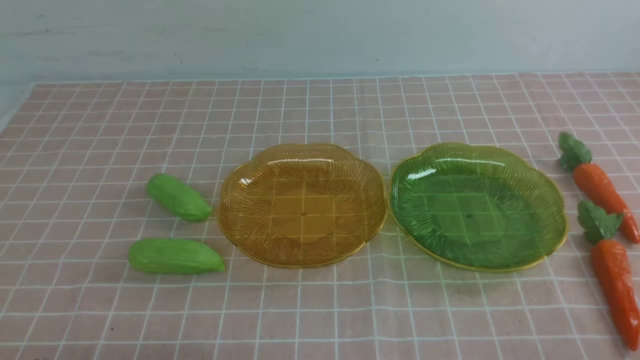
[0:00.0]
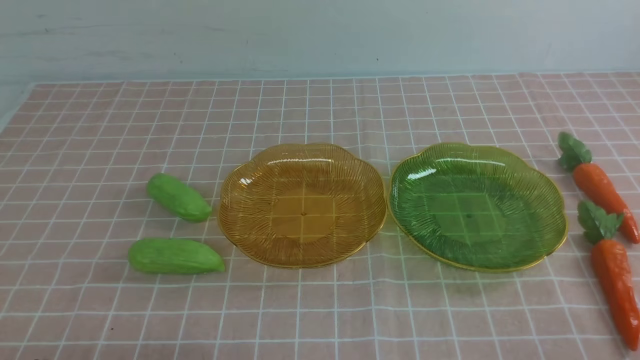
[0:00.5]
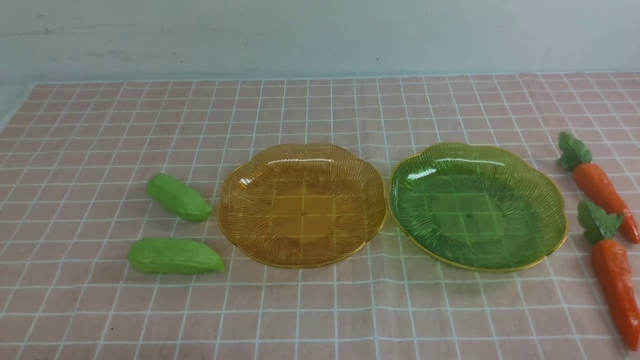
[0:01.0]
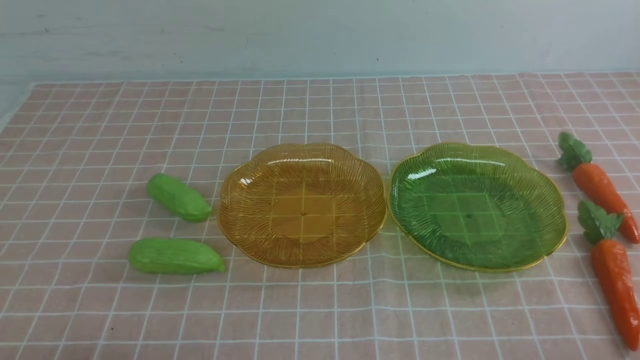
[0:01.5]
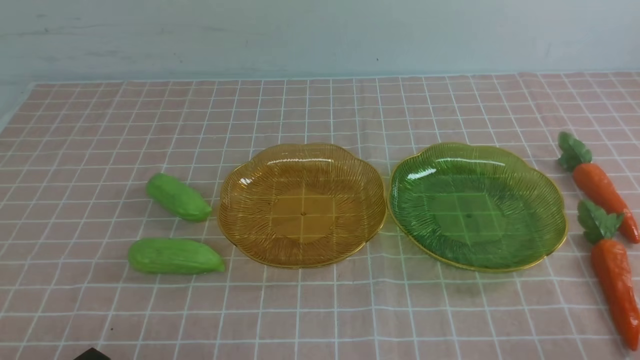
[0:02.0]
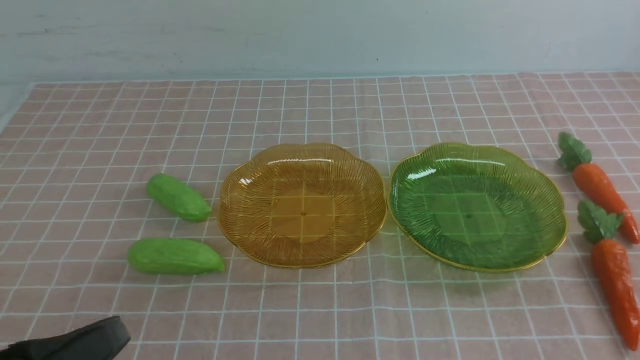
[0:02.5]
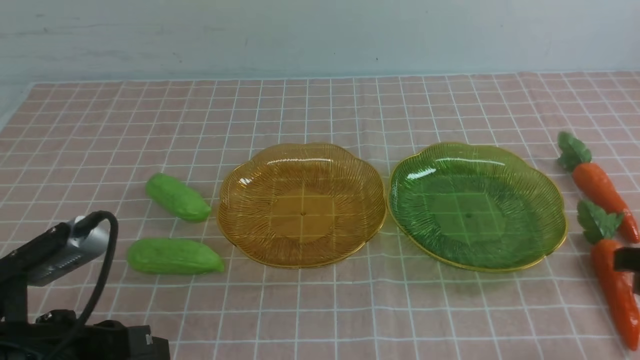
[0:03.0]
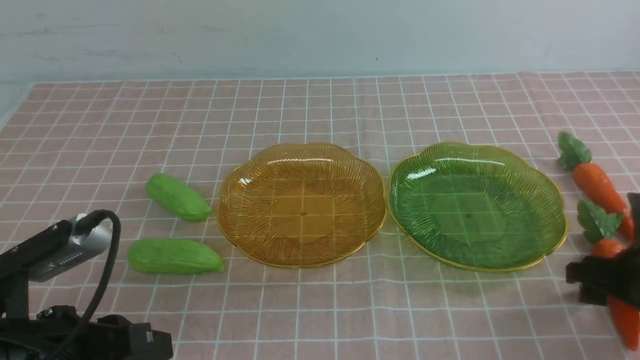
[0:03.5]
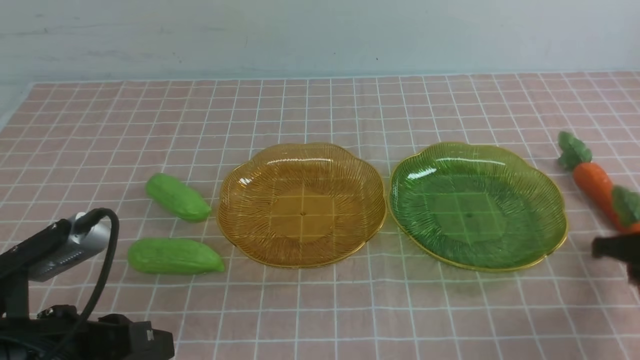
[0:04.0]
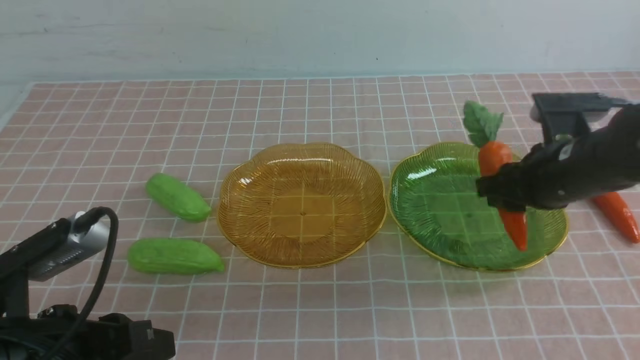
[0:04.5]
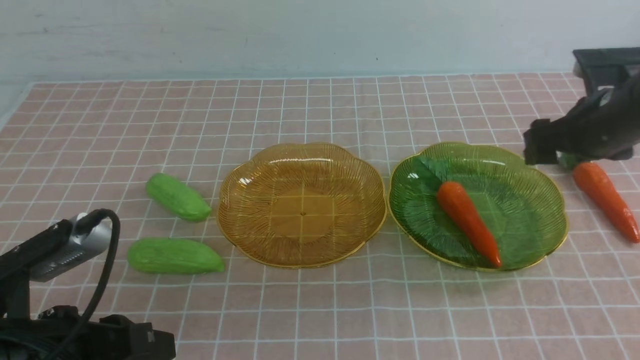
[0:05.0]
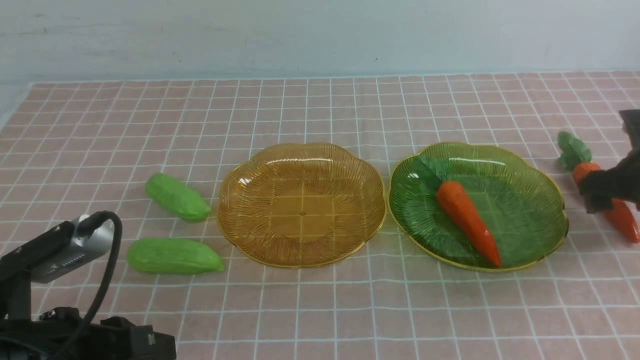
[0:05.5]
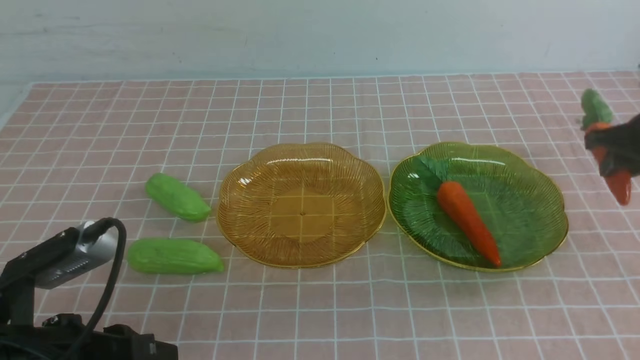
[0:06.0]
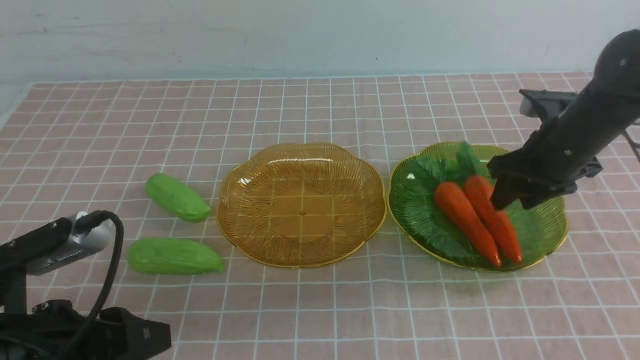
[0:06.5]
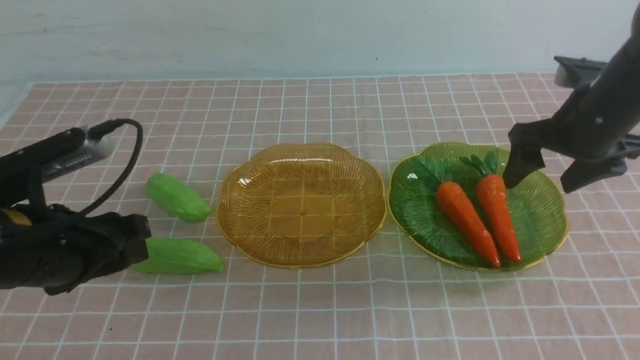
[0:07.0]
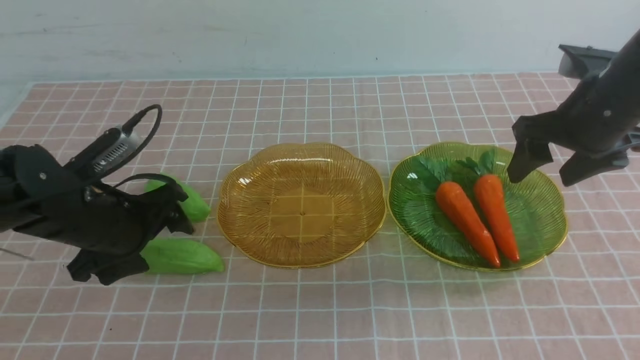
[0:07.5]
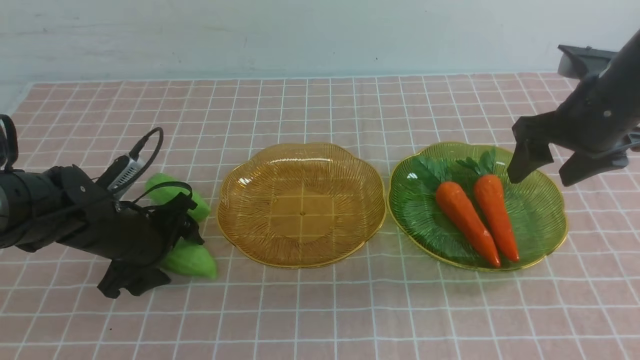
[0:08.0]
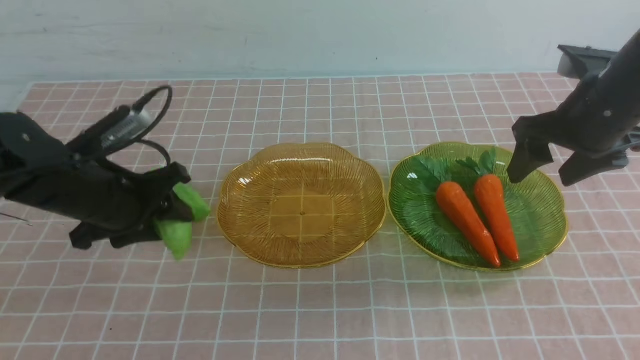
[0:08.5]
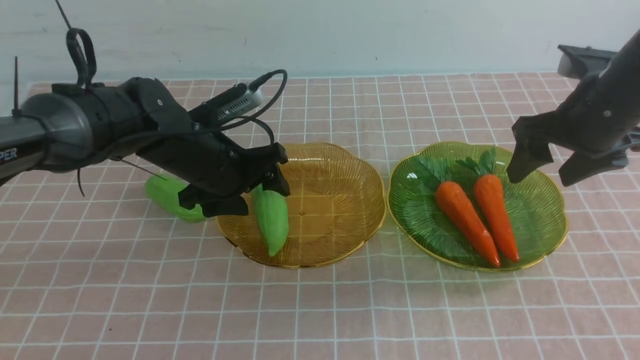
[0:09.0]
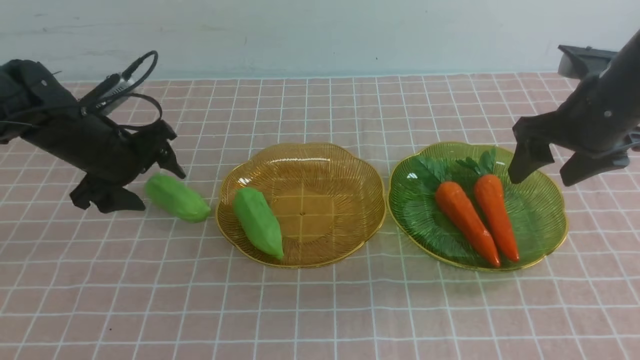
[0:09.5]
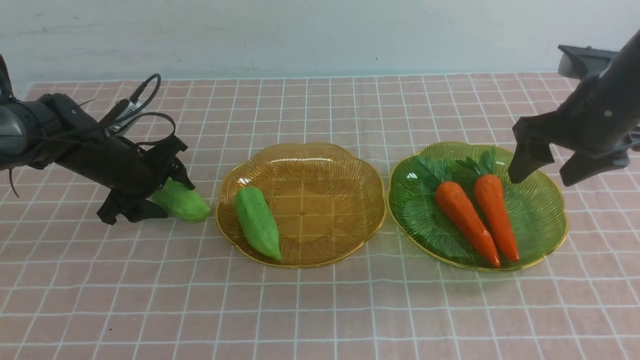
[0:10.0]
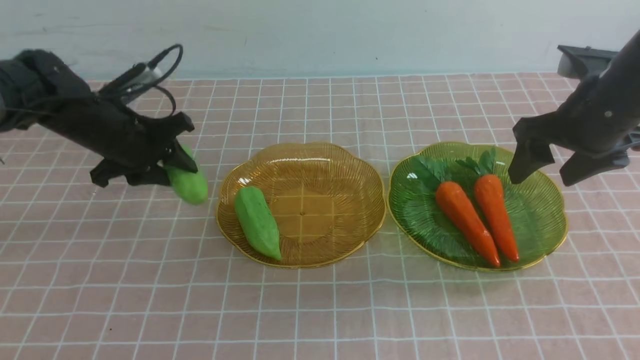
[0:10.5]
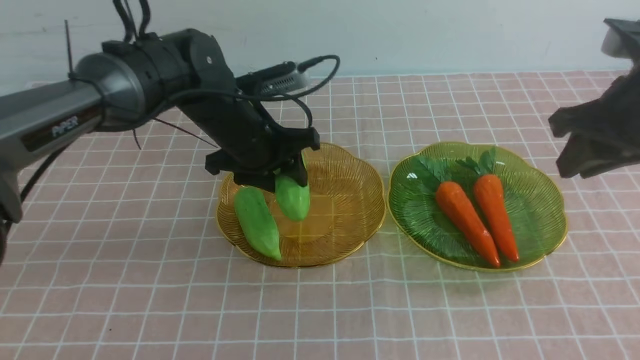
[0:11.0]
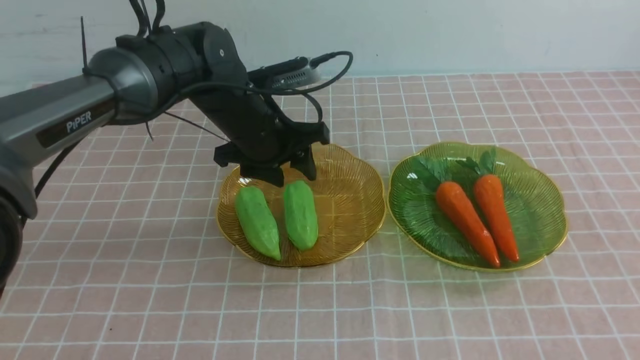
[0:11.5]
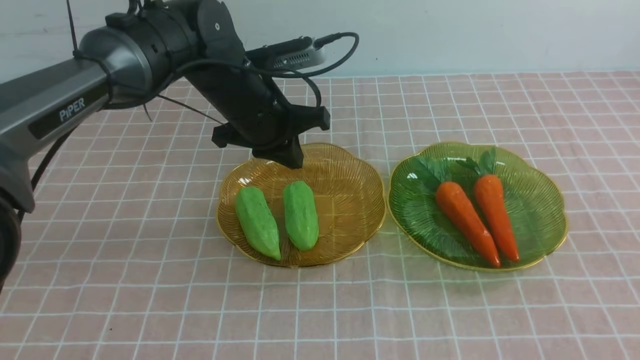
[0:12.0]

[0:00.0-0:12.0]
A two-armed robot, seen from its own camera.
Step, 0:00.0 to 0:04.5: use the right arm to grab a carrot and put it into the right plate.
Step, 0:05.0 to 0:06.5: use the right arm to grab a carrot and put it into the right plate.
Step, 0:07.0 to 0:09.0: use the left arm to grab a chayote and put it into the right plate.
Step, 0:09.5 to 0:11.0: use the left arm to grab a chayote and put it into the left plate.
0:02.0 to 0:04.0: The right gripper travels forward by roughly 25 cm, and opens; the left gripper goes roughly 10 cm forward and upward.
0:04.0 to 0:06.0: The right gripper travels forward by approximately 10 cm, and opens, then closes once more.
0:06.0 to 0:08.0: The left gripper travels forward and downward by approximately 20 cm, and opens up; the right gripper goes approximately 5 cm upward, and opens its fingers.
0:08.0 to 0:10.0: The left gripper travels forward by some 10 cm, and travels to the right and back again, about 5 cm each way.
0:10.0 to 0:12.0: The left gripper goes approximately 25 cm upward and to the right, and closes up, while the right gripper shifts about 30 cm backward, and closes up.

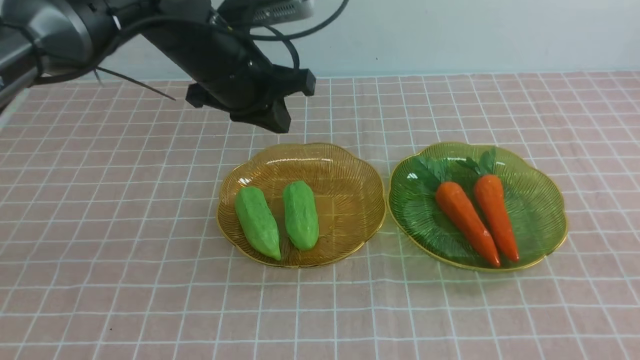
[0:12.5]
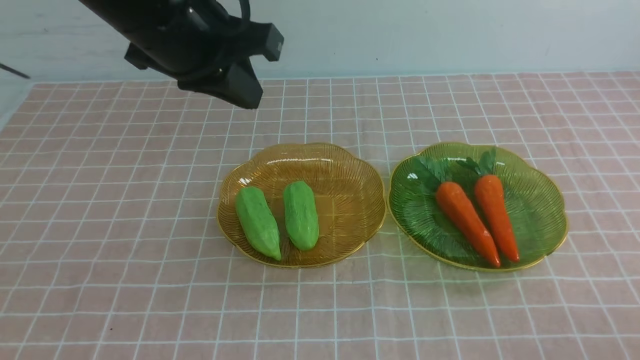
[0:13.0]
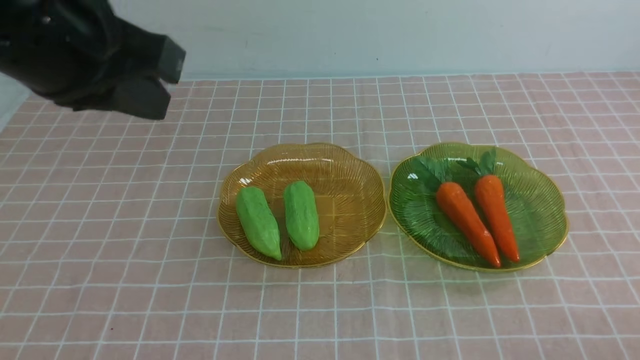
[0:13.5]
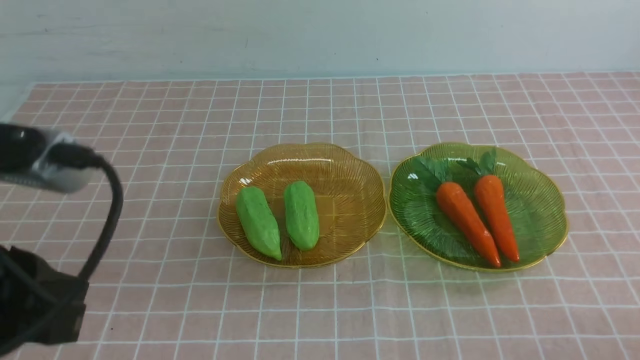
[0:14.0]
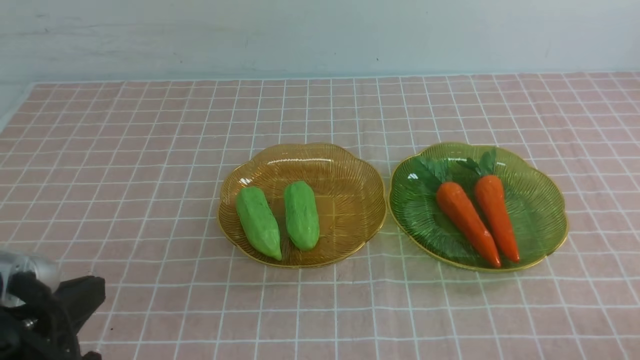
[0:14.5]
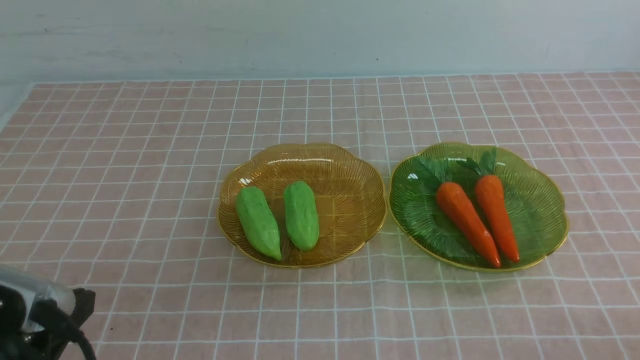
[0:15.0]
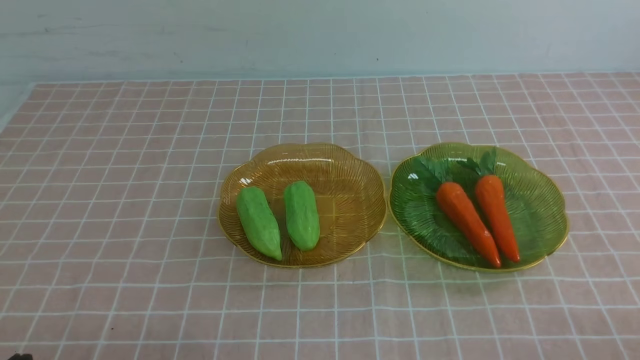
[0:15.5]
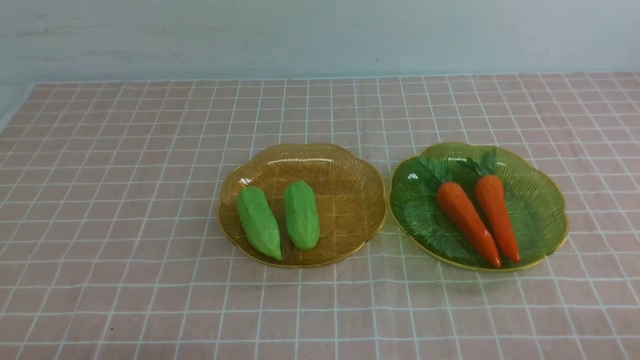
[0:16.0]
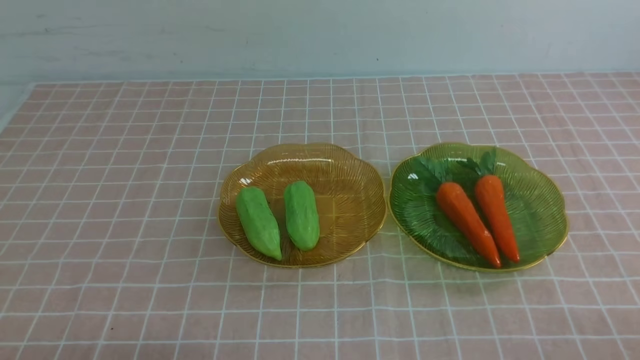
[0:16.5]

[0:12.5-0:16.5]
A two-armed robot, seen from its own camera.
0:12.5 to 0:14.5: The left gripper shifts approximately 30 cm backward, downward and to the left.
0:14.5 to 0:16.5: The left gripper is displaced downward by roughly 10 cm.
